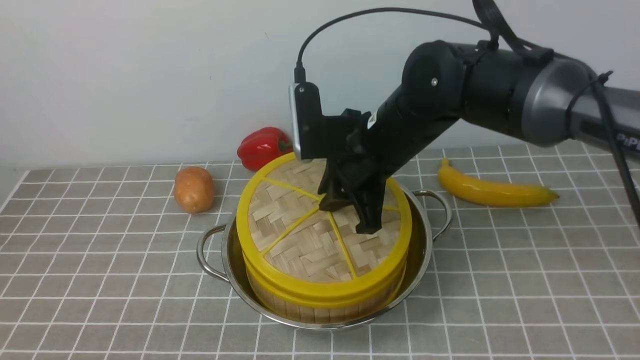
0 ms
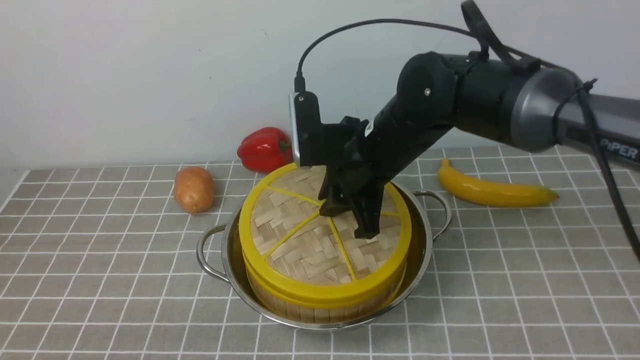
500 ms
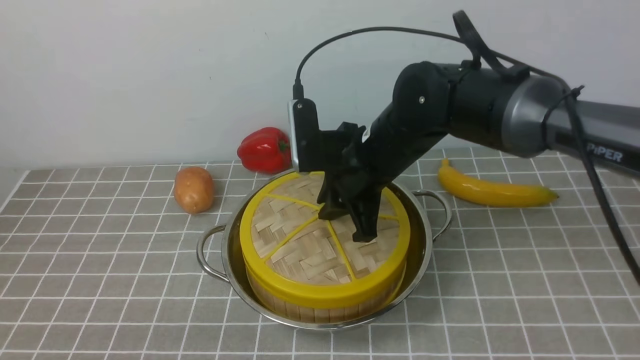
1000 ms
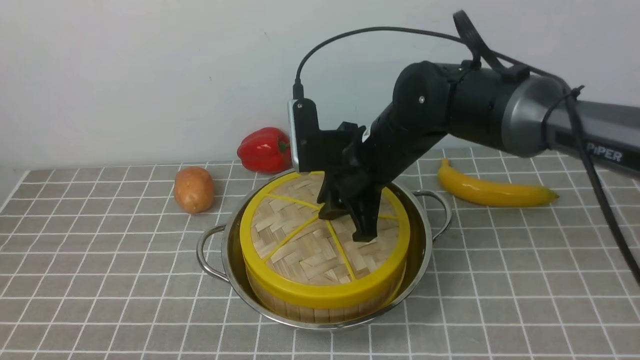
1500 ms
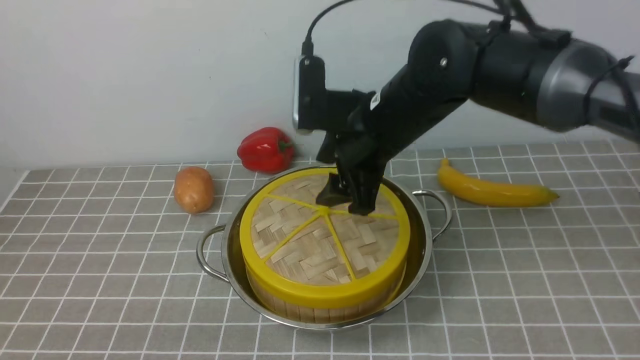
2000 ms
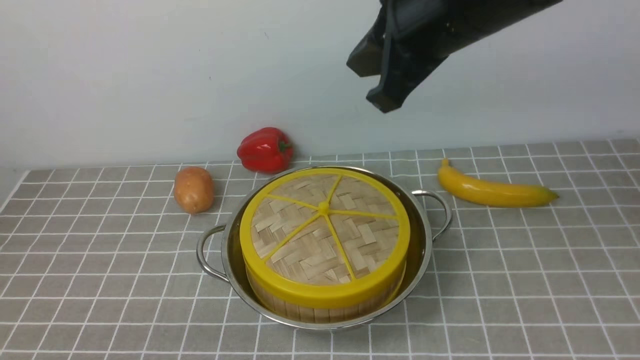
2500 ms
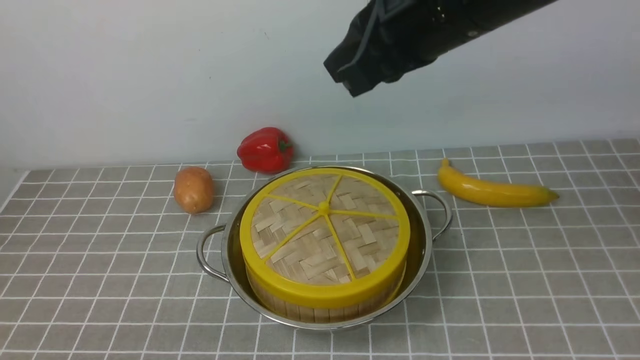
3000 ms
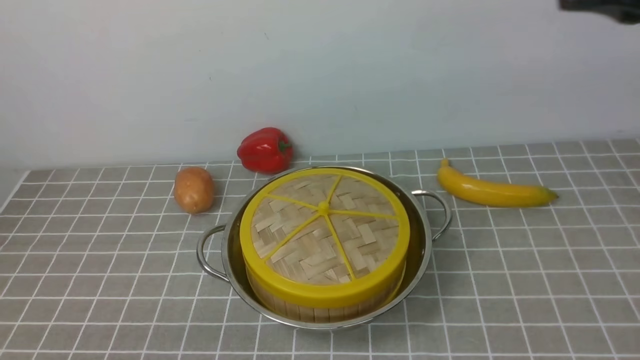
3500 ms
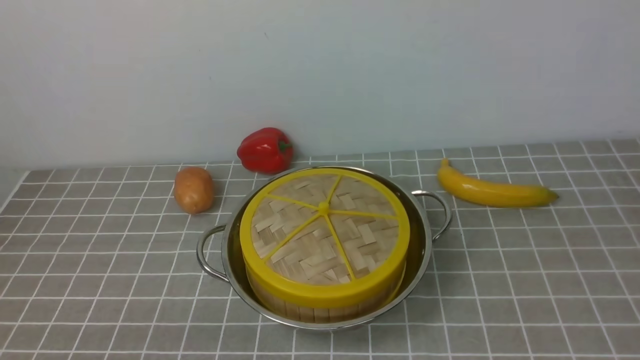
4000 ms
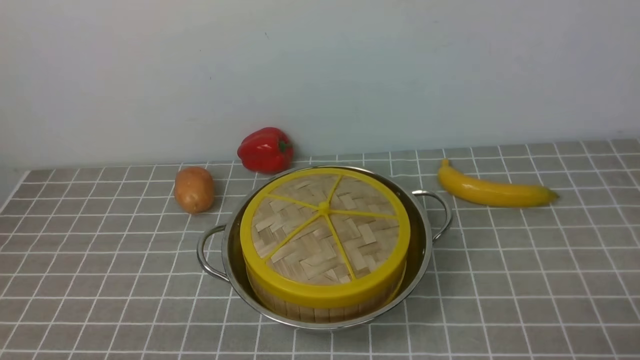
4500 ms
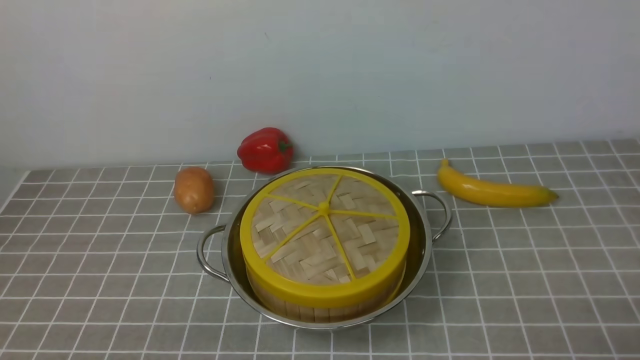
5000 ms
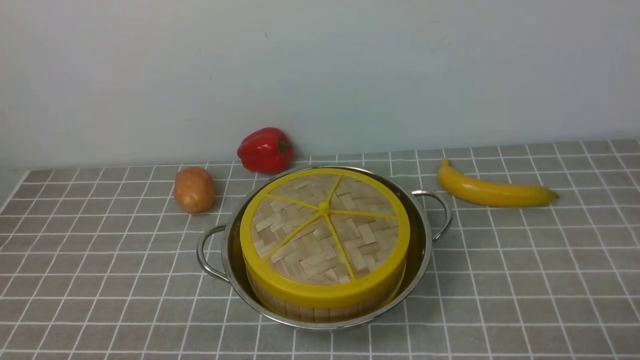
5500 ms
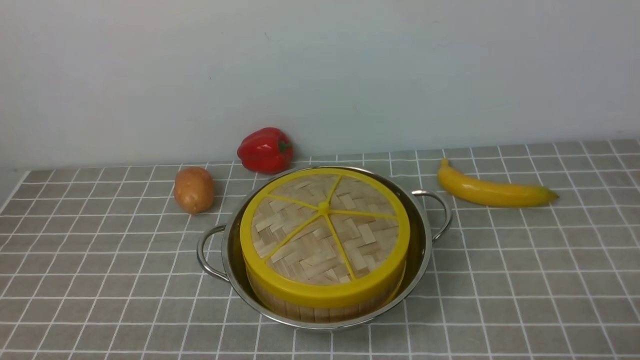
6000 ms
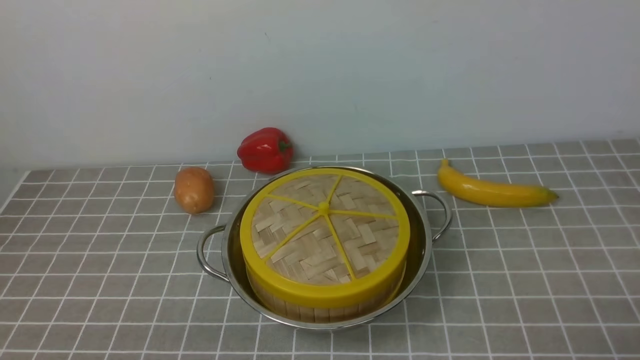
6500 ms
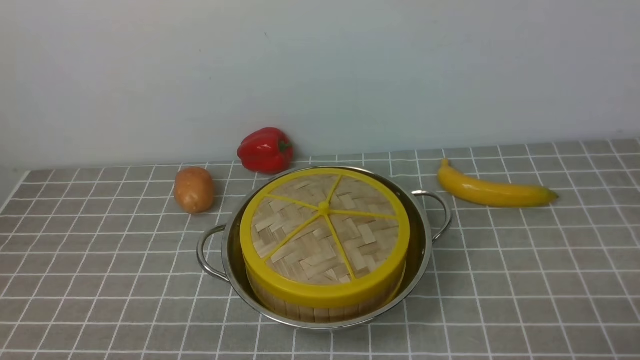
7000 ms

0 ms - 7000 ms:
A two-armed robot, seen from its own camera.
Task of the whole recording: place the steamer in the pot on the grey tablecloth, and put the lid on the steamer.
0 ms - 2000 ms: The right gripper opens.
2000 ms - 3500 ms: The right gripper is displaced to the right, upward and backward by roughly 25 cm, and closes its fingers.
3500 ms - 5000 ms: The right gripper is displaced downward and backward by approximately 30 cm, and opens its fingers.
5000 ms - 7000 ms: The two grippers keep their place.

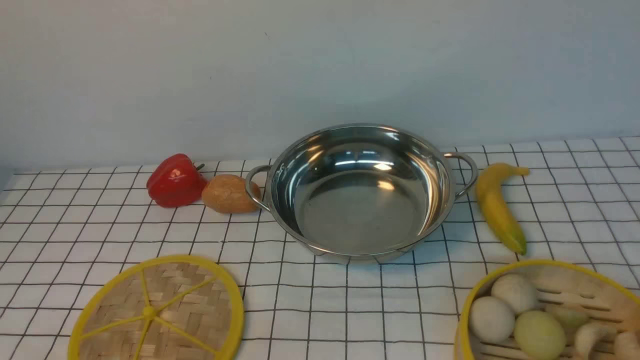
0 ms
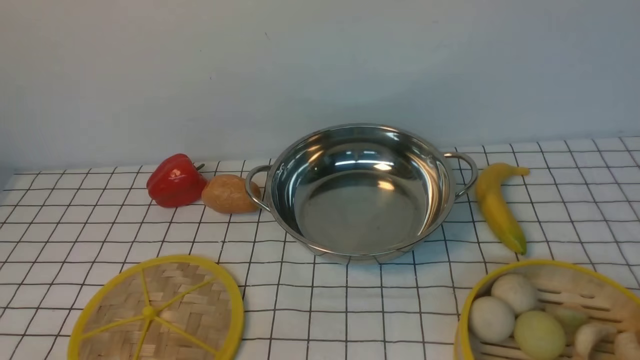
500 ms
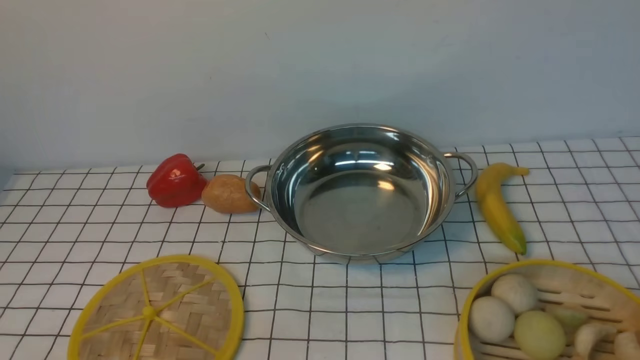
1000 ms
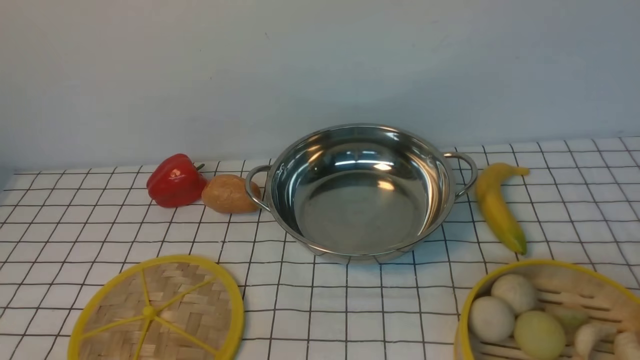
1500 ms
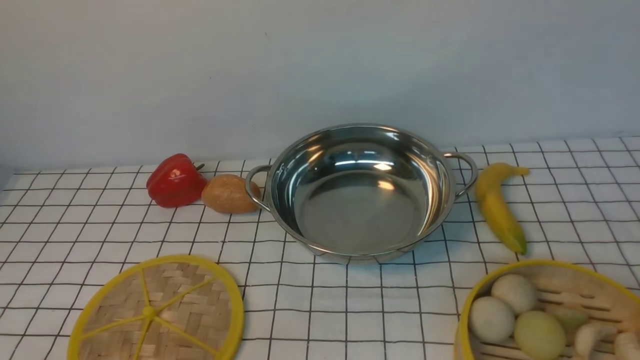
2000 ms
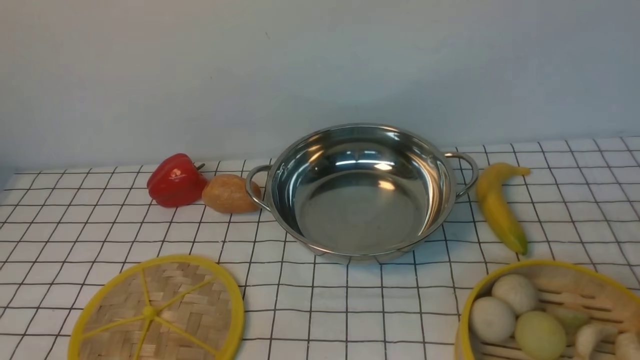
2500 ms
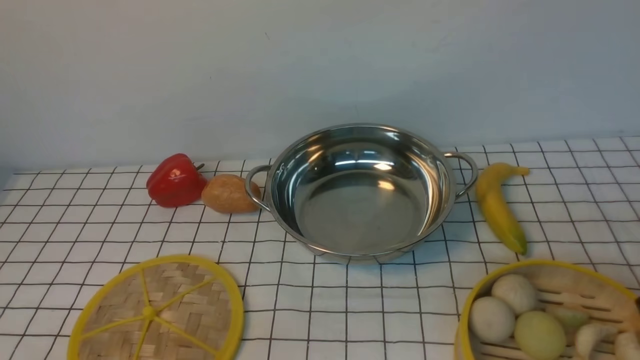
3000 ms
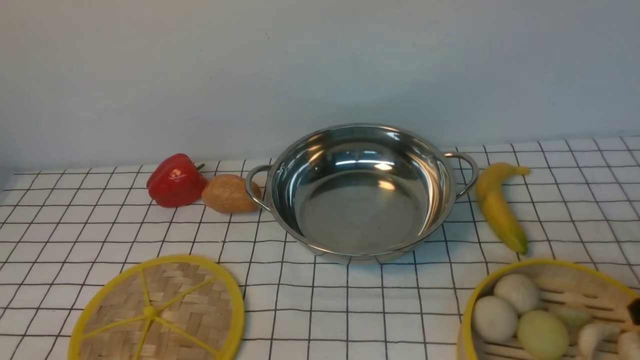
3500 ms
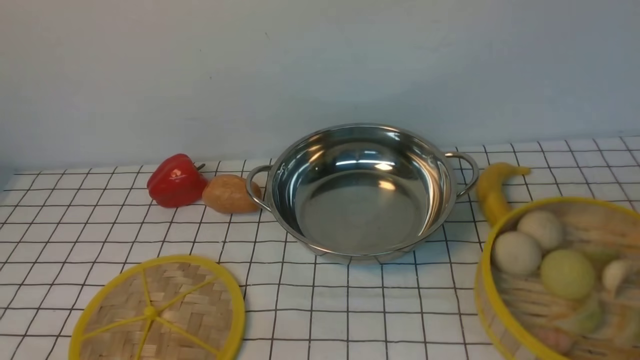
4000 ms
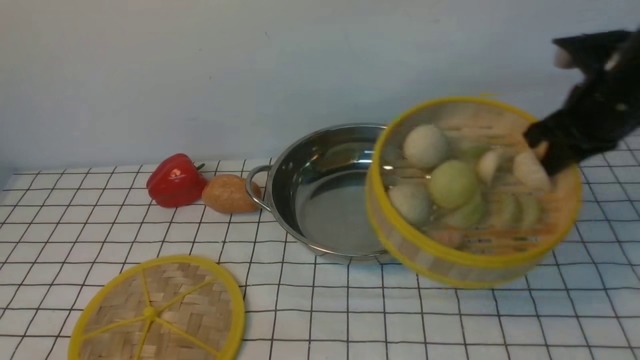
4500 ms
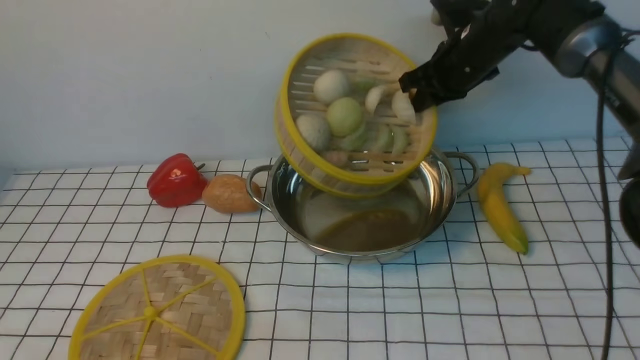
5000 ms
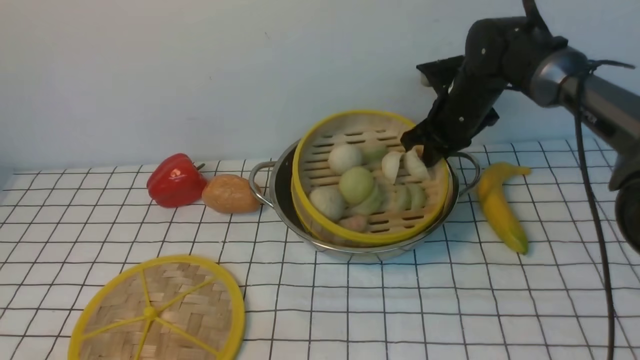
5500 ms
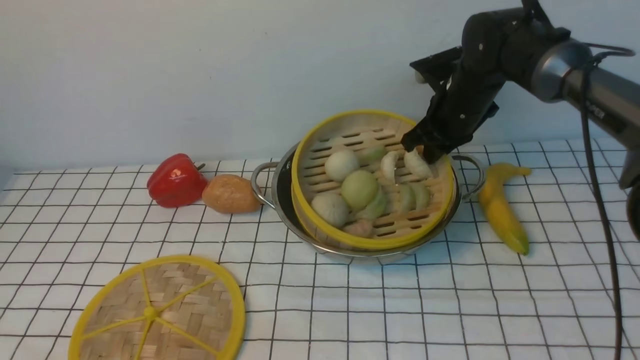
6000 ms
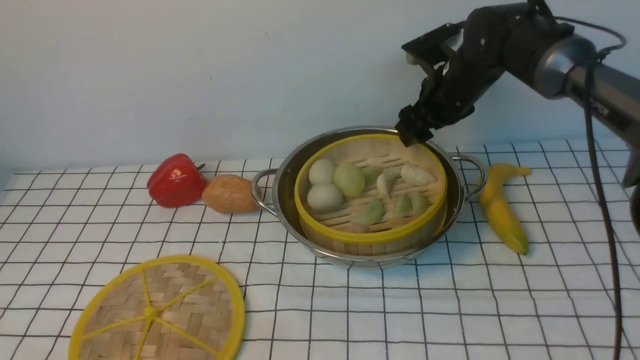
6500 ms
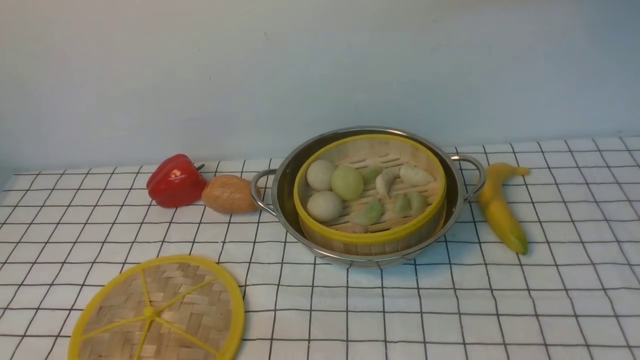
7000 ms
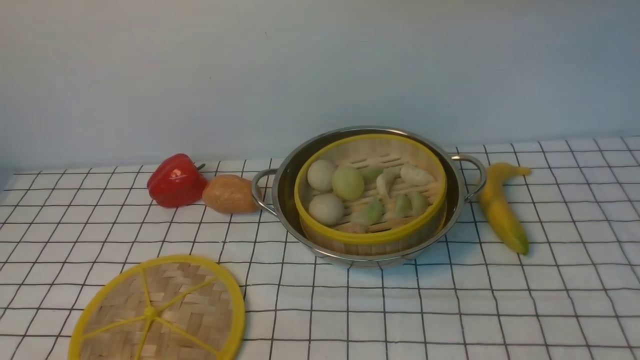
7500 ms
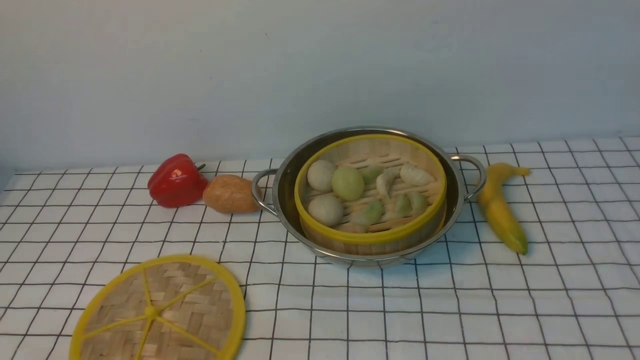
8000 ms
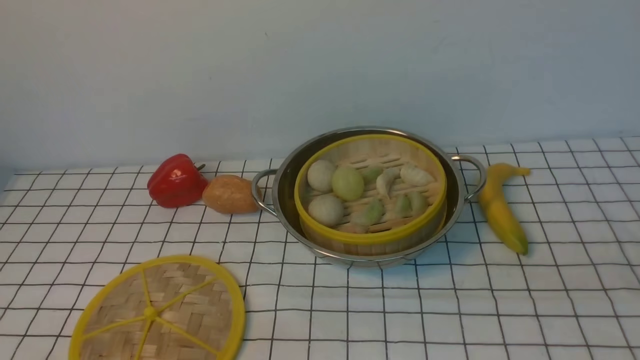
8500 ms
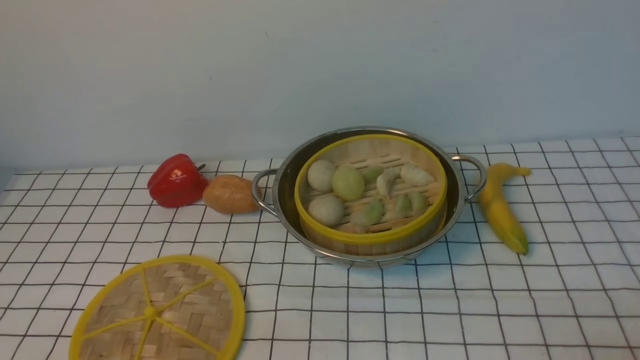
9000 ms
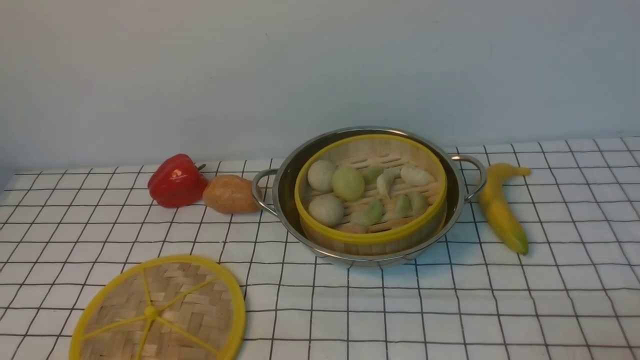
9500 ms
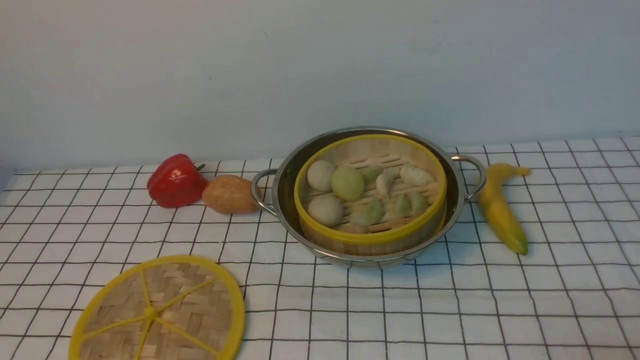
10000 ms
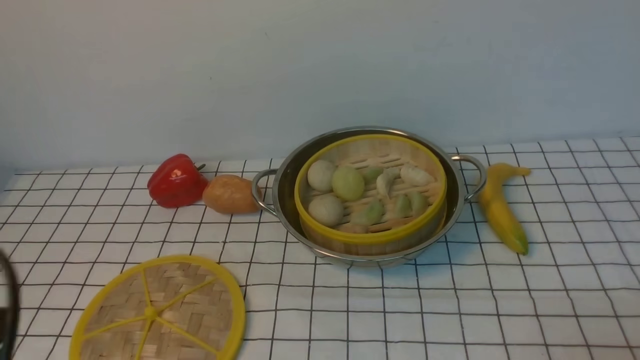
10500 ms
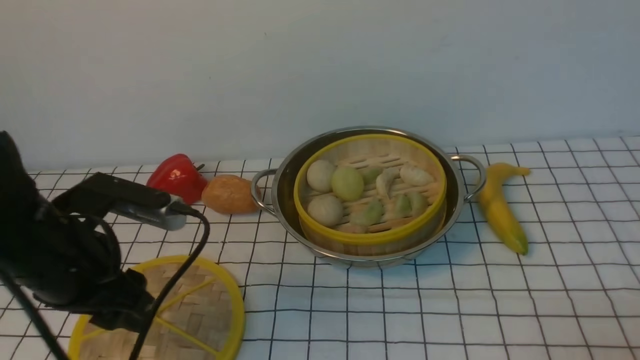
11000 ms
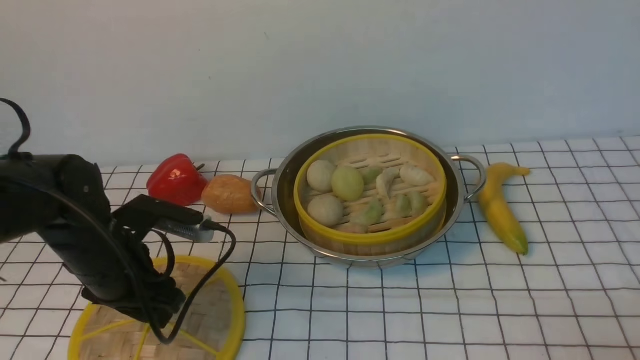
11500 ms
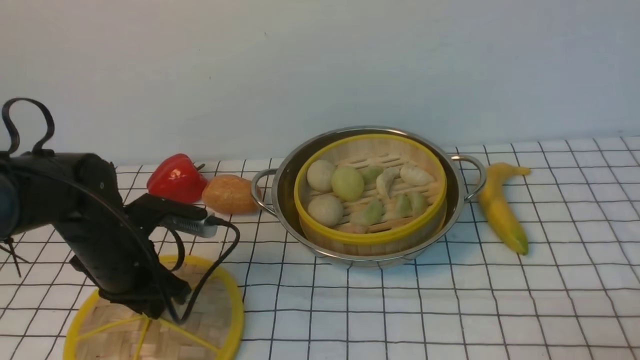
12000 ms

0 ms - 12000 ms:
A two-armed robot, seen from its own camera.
Task of the whole recording: place the steamer in the pot on the white tablecloth, and put the lid on the steamer.
Step, 4000 ms - 6500 ms: use the right arm to put the steamer into the iron steamer pot in the middle.
Step, 7000 ms - 12000 ms: use the left arm to lift the lid of the steamer.
2000 ms - 4000 ms: The right gripper heads forward, covering about 15 cm, and closes up.
4000 ms - 6000 ms: The right gripper heads forward and to the left, covering approximately 30 cm.
6000 ms - 8000 ms: The right gripper moves backward and upward, about 40 cm, and opens, then closes again.
10000 ms - 12000 ms: The left gripper shifts about 25 cm forward, and opens, then closes once more.

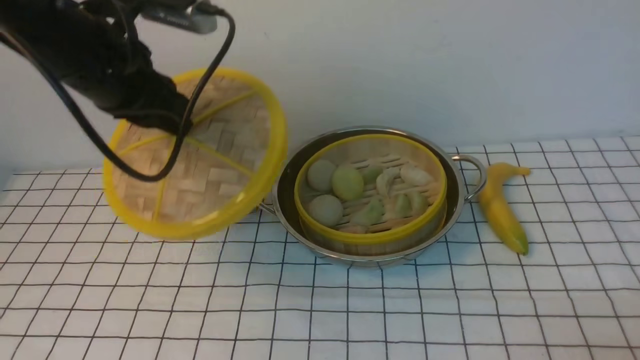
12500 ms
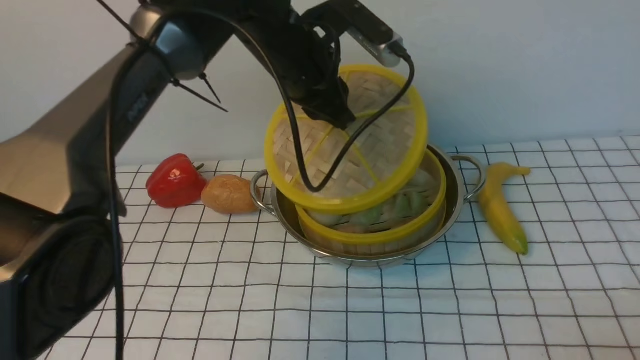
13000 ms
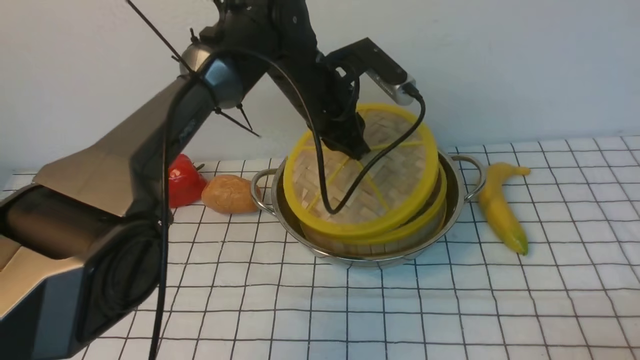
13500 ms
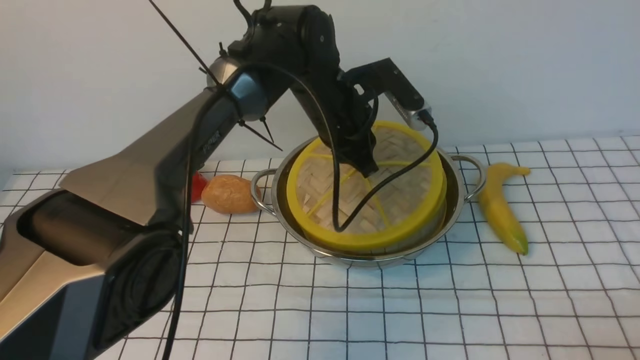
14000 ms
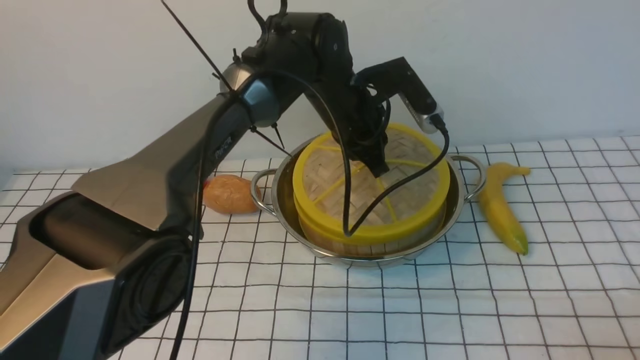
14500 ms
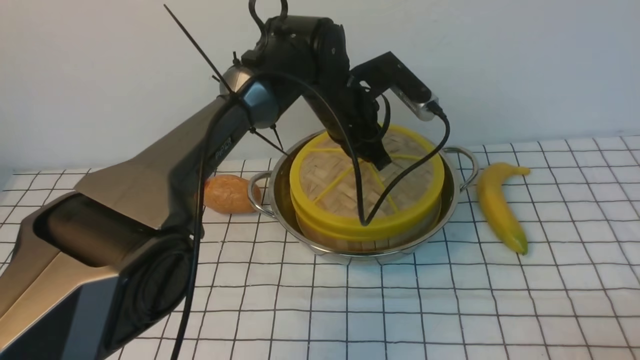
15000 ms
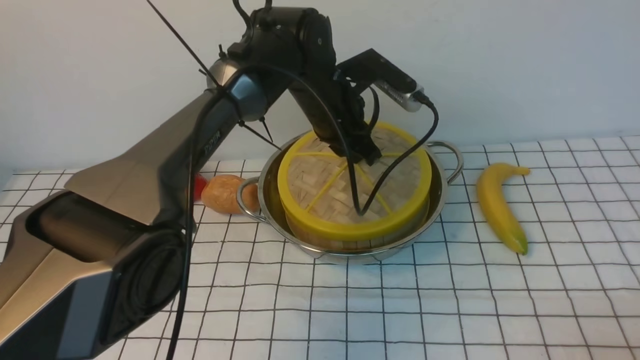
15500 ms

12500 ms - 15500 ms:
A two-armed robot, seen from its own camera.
Task of the whole recording: place the steamer in the pot on the white tablecloth, and put the lid on the steamer.
12500 ms - 14000 ms: The left gripper heads to the right, downward and forward, covering roughly 20 cm.
14000 ms - 15500 ms: The grippers move only a little.
